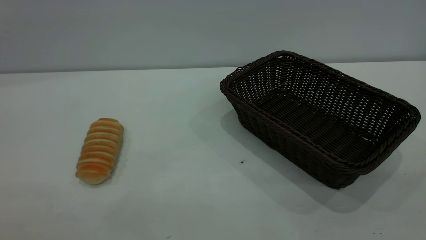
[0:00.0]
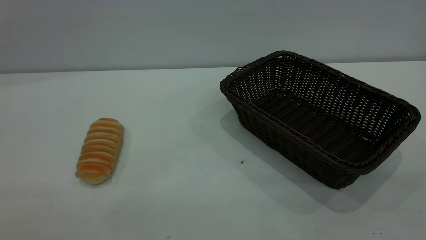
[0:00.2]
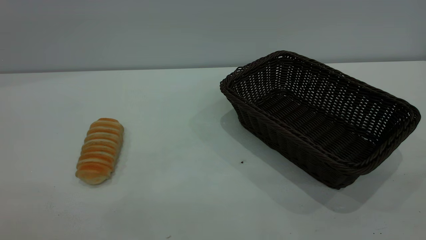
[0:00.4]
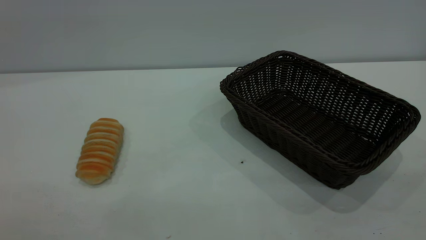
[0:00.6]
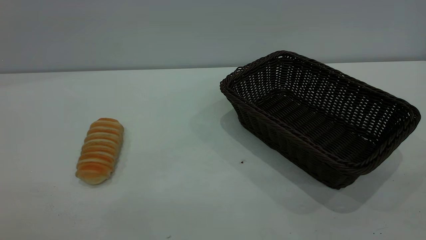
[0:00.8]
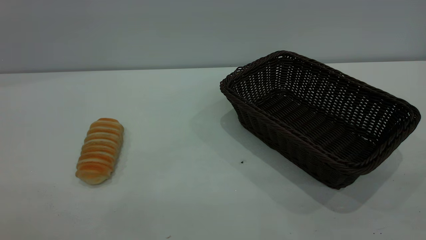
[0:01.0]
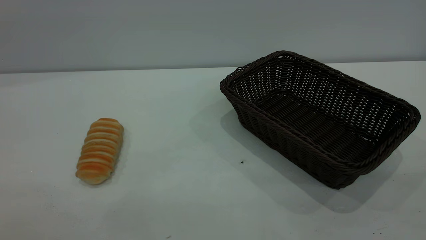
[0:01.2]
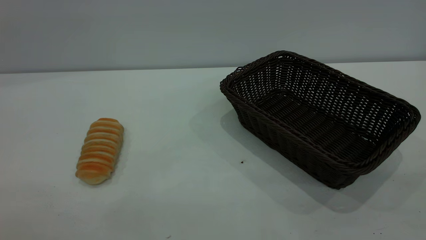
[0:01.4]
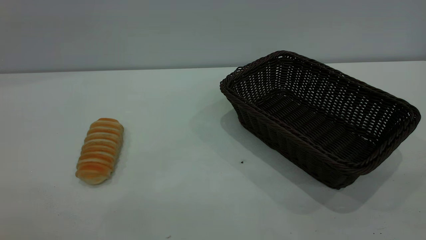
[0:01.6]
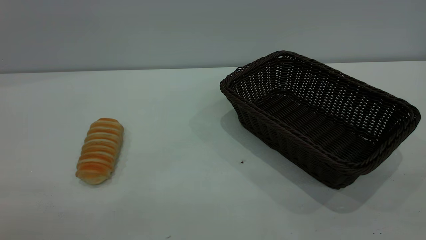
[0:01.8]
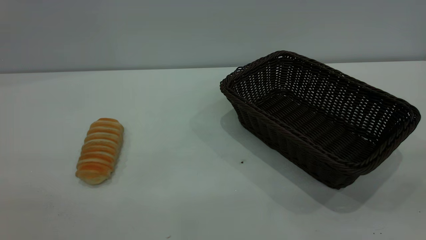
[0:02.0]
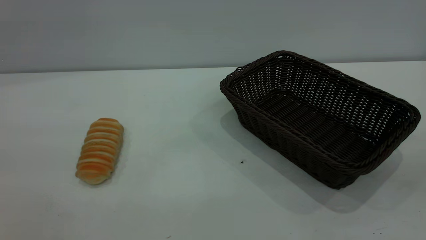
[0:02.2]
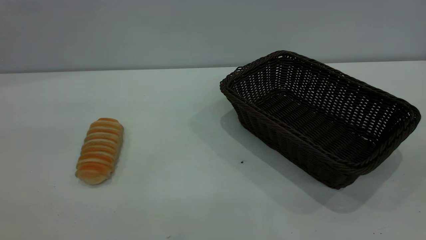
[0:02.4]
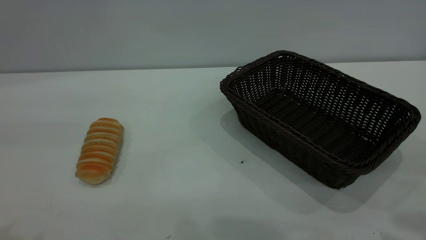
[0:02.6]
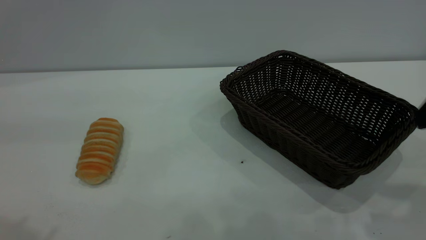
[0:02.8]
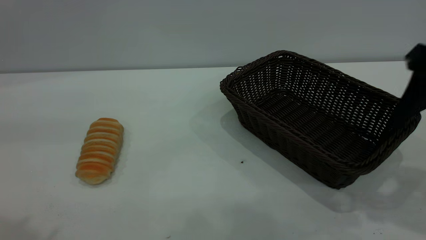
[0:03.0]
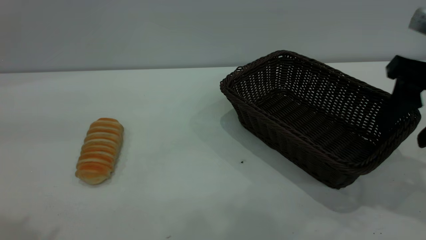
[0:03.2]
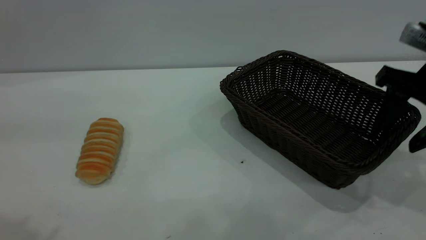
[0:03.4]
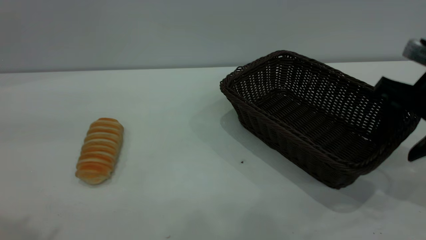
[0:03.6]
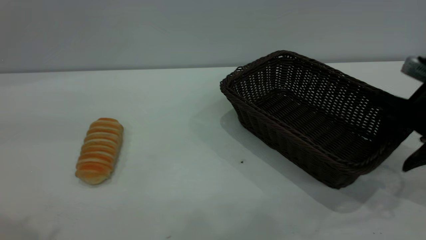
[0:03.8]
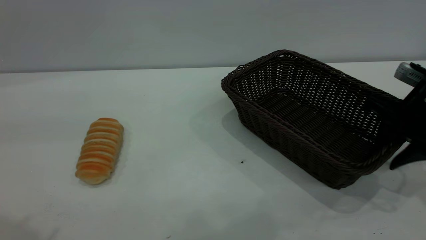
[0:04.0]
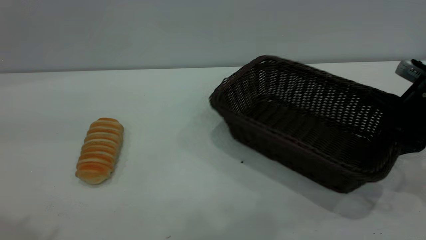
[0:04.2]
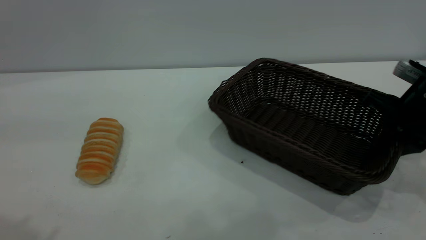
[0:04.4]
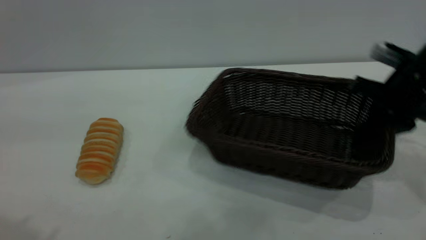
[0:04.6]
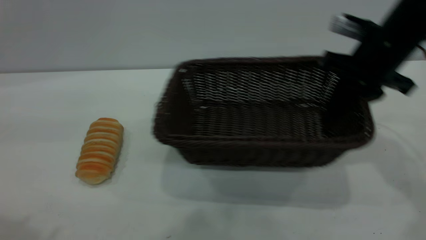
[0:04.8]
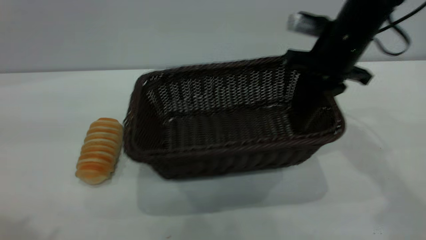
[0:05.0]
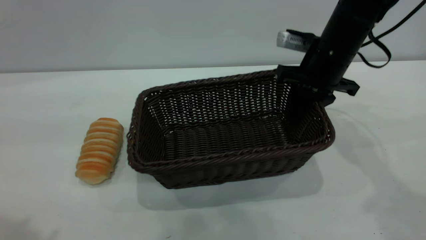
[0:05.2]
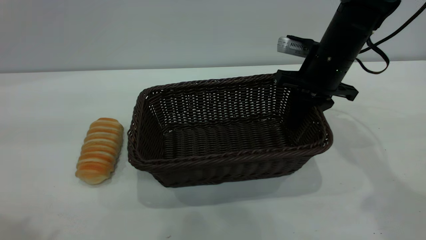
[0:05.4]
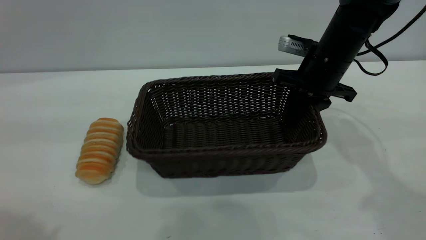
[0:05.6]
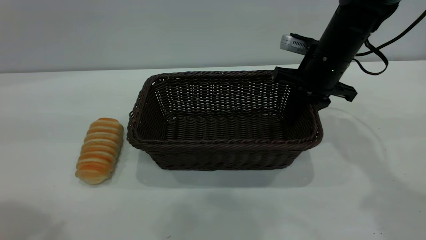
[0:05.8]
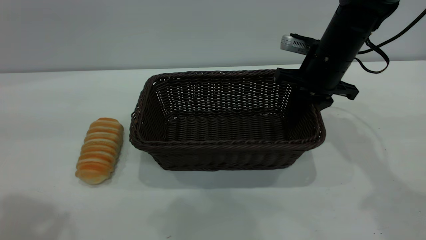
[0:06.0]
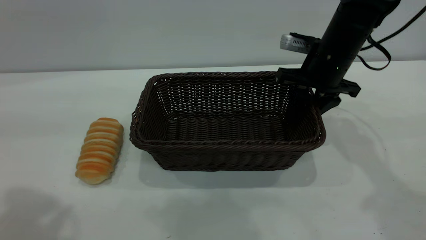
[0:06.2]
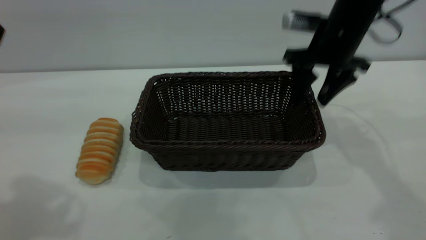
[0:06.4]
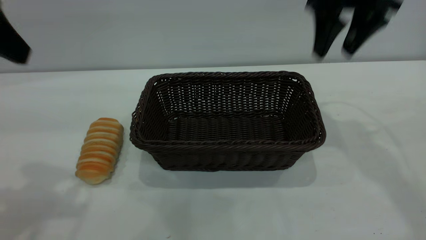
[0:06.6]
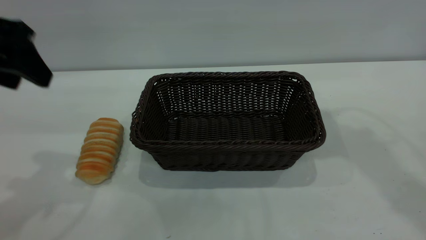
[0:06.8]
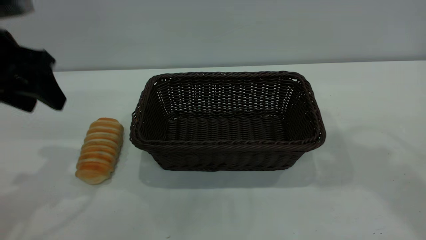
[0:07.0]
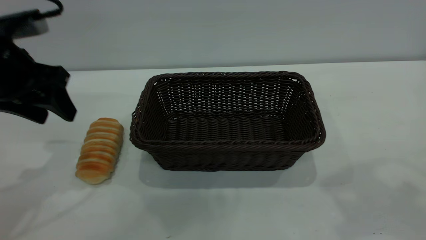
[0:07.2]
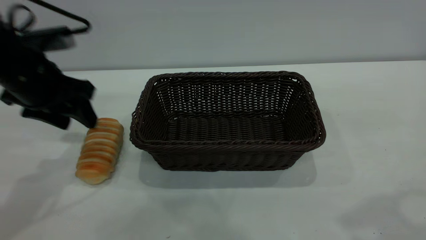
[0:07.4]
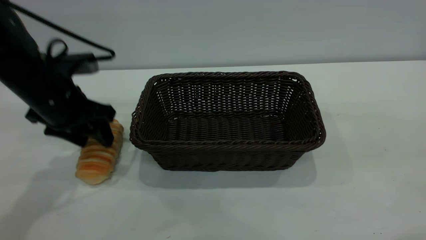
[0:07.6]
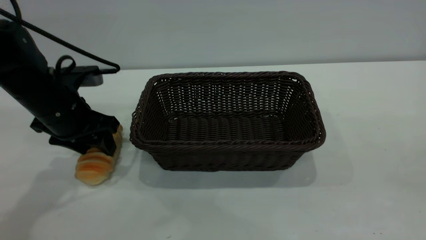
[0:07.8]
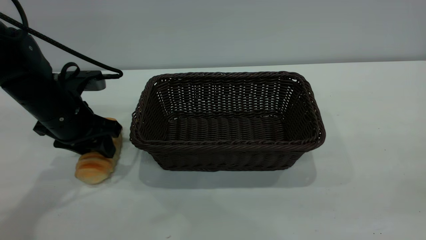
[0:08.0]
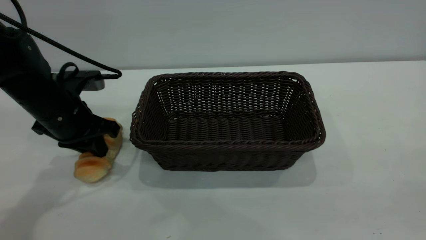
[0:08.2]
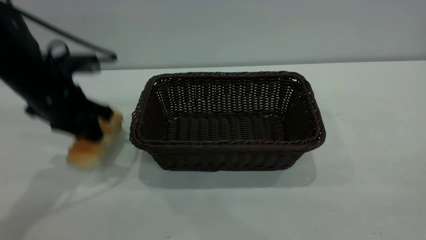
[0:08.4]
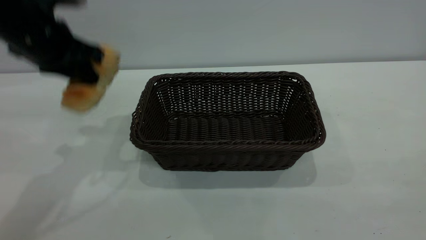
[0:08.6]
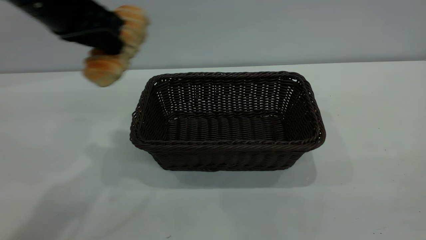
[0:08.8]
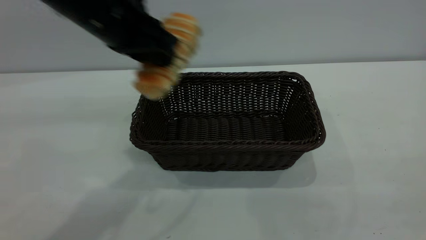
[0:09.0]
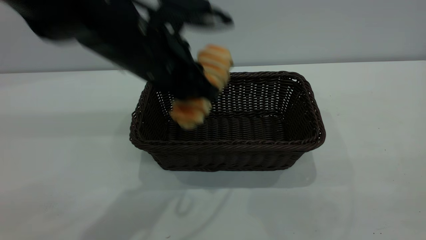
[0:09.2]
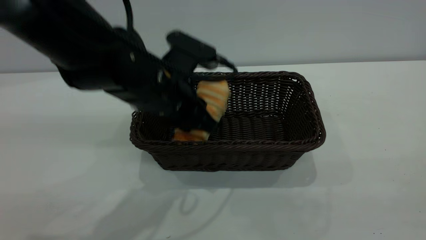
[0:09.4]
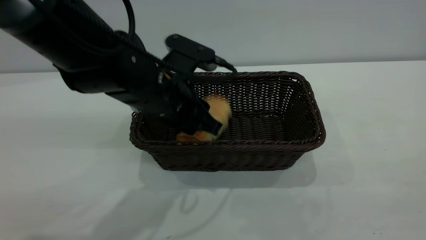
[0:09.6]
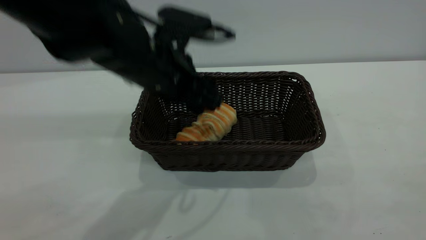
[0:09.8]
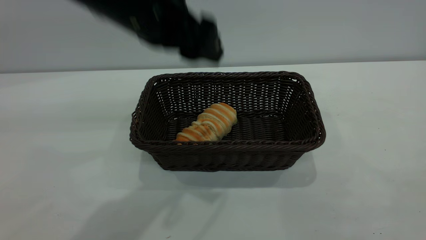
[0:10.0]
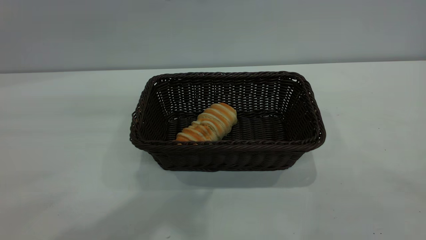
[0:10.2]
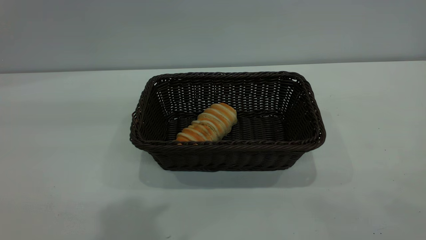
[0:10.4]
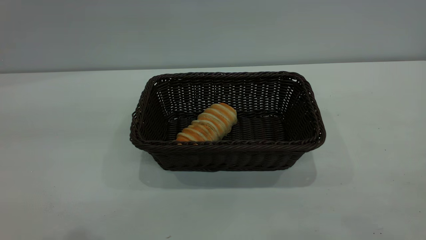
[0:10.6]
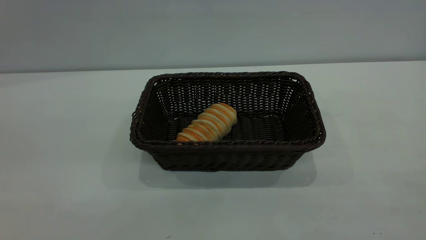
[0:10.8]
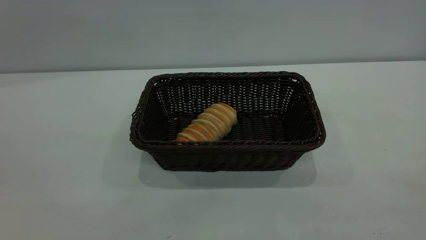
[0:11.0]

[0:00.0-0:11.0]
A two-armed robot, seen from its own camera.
Task of the whole recording: One hand grasps the black basket and places it in the middle of the table, while the other hand picks up the long bread and puts it into the black basket.
Step, 0:00.0 to 0:06.4: Move the basket to the center of view.
Step, 0:08.6 to 0:09.8: place the bread into the basket.
0:00.0 to 0:01.6: Neither gripper changes place.
0:01.6 to 0:03.2: The right gripper is displaced forward and downward by about 30 cm, and opens its fingers.
0:03.2 to 0:04.8: The right gripper shifts about 10 cm forward and to the left, and closes up.
0:04.8 to 0:06.2: The left gripper moves some 5 cm. The right gripper changes place by approximately 5 cm, and opens up.
0:06.2 to 0:07.8: The left gripper shifts approximately 30 cm downward and forward. The right gripper goes some 40 cm backward and upward.
0:07.8 to 0:09.4: The left gripper travels to the right by roughly 15 cm, travels upward and back again, roughly 15 cm each way, and closes its fingers; the right gripper heads backward, covering about 5 cm.
0:09.4 to 0:11.0: The left gripper heads backward, upward and to the left, covering some 40 cm, and opens up.
